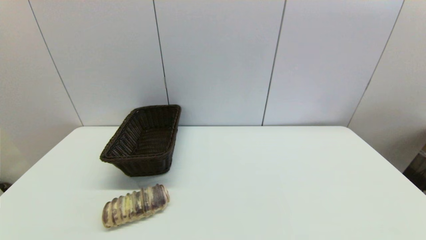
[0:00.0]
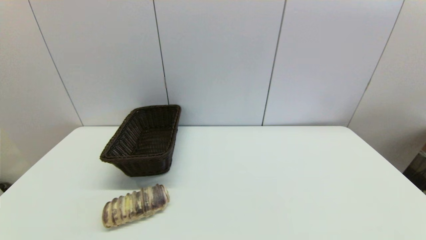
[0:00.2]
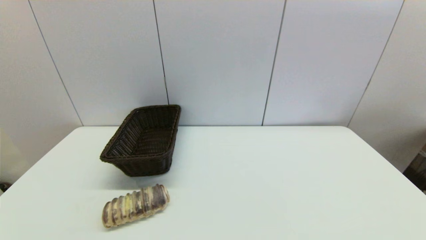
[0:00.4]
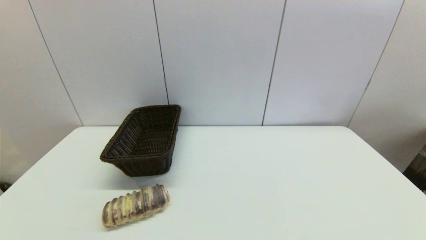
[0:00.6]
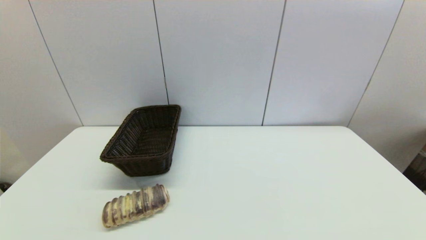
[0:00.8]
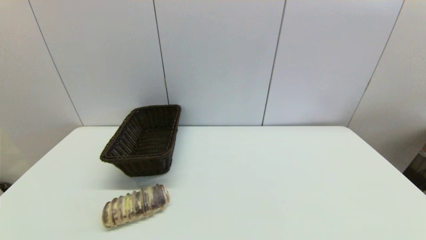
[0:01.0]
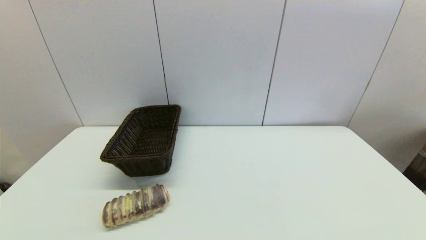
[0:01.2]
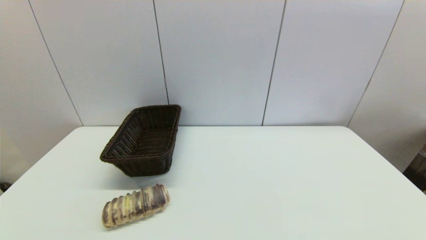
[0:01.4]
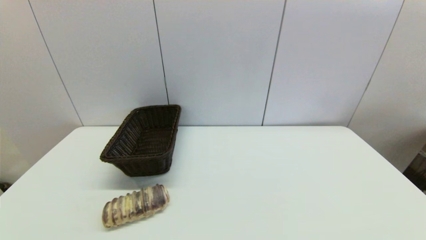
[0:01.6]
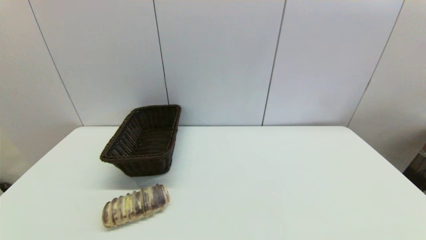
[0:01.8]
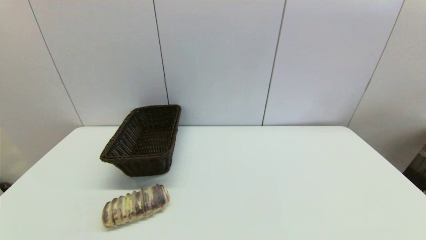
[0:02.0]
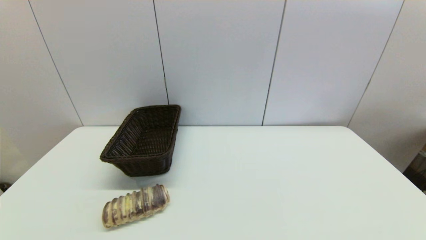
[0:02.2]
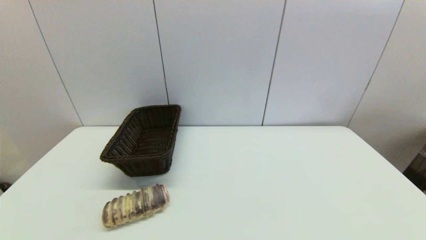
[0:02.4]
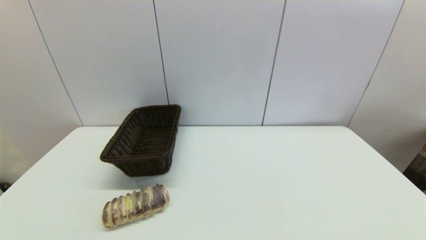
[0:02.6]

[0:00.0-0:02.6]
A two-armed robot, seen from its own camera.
0:00.0 to 0:02.6: The two grippers keep their place.
